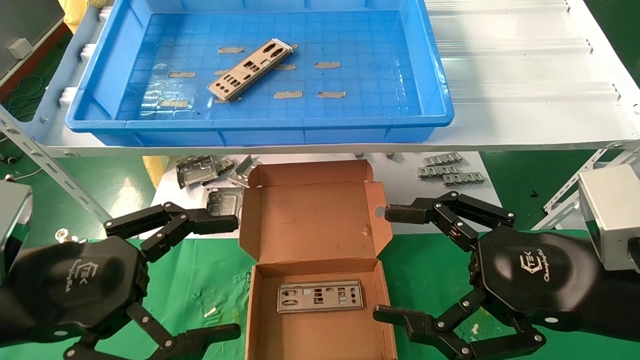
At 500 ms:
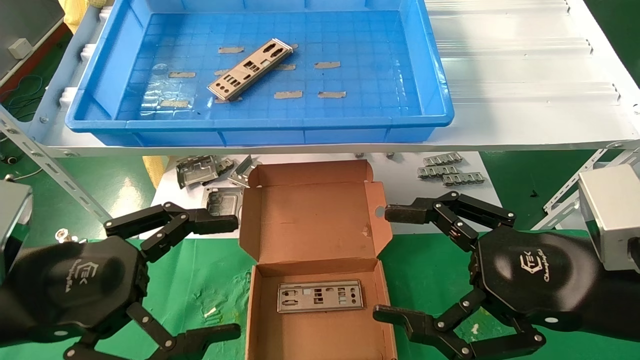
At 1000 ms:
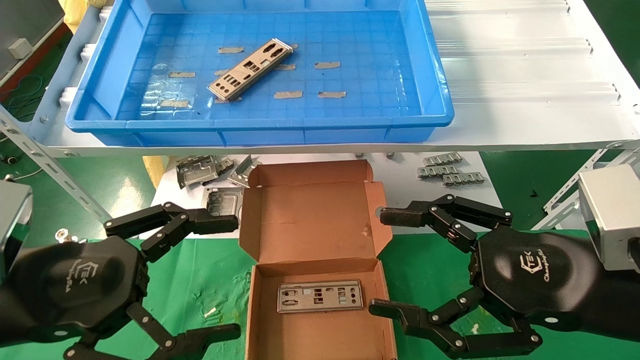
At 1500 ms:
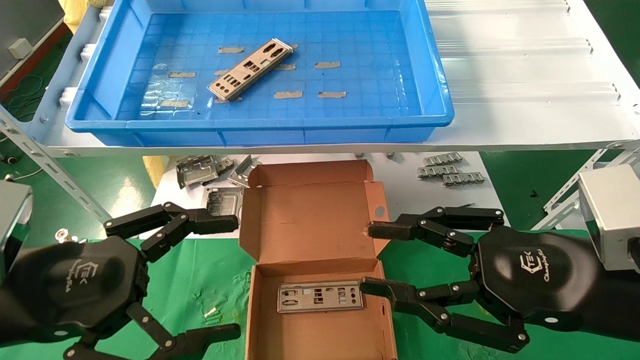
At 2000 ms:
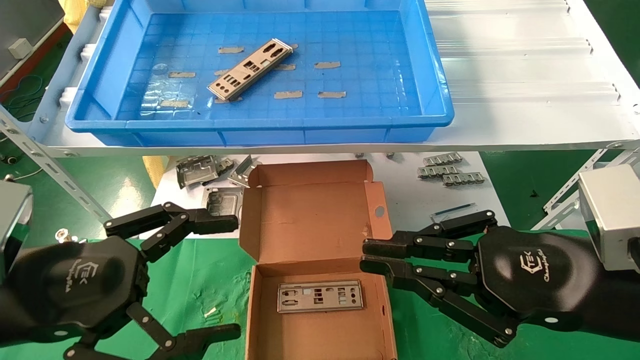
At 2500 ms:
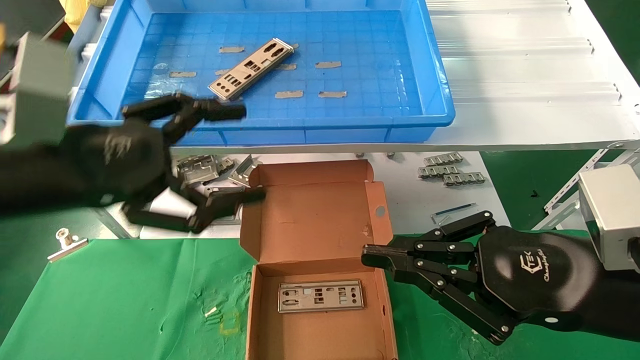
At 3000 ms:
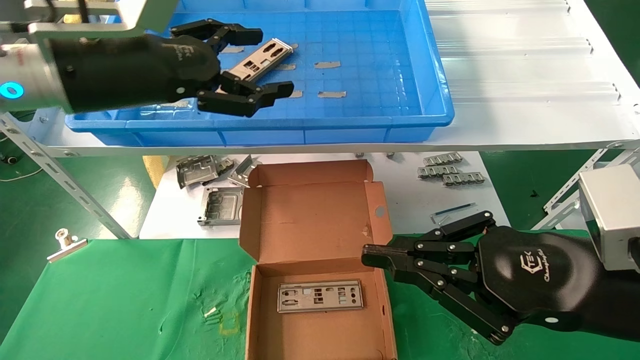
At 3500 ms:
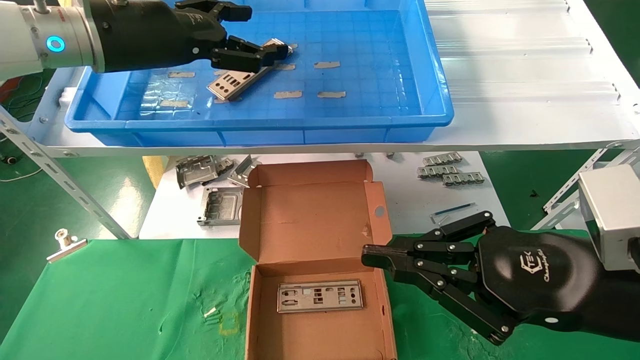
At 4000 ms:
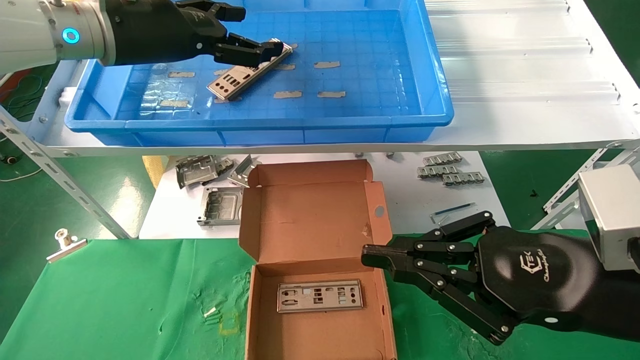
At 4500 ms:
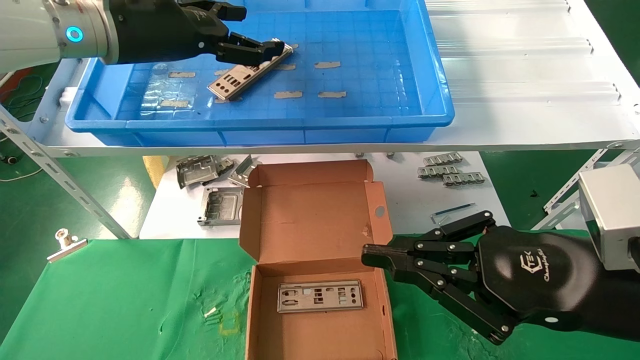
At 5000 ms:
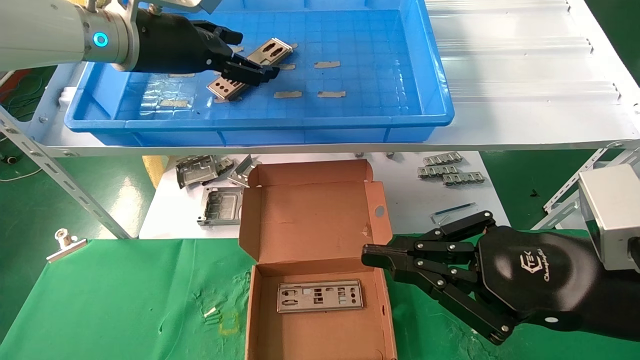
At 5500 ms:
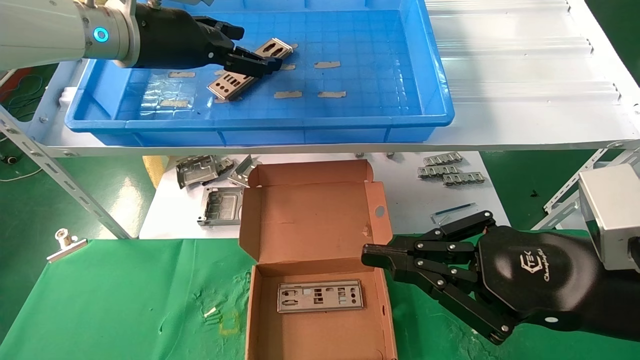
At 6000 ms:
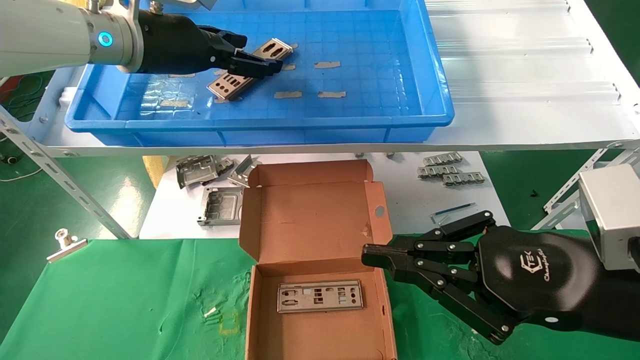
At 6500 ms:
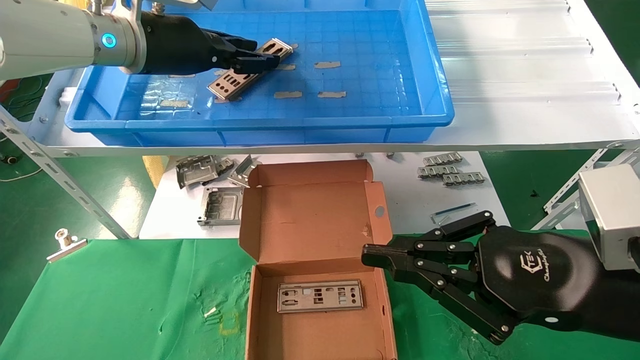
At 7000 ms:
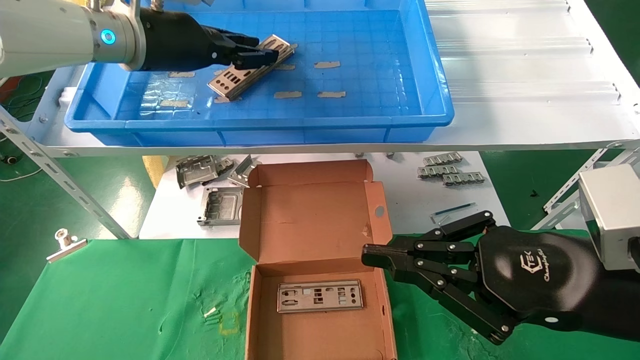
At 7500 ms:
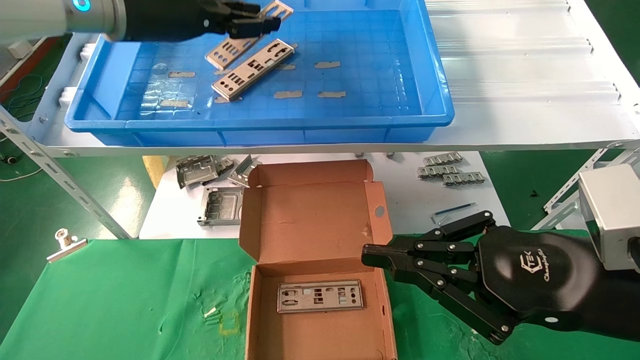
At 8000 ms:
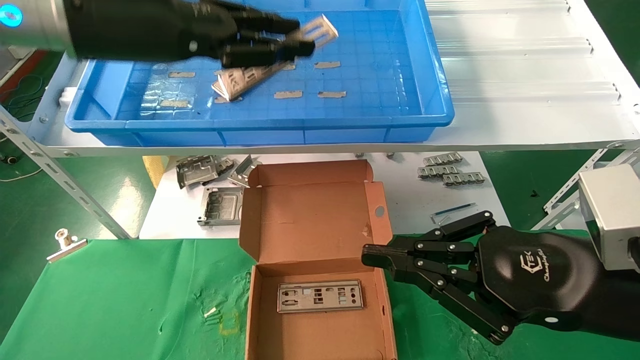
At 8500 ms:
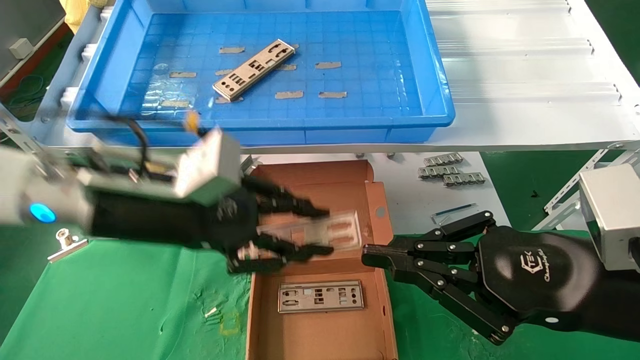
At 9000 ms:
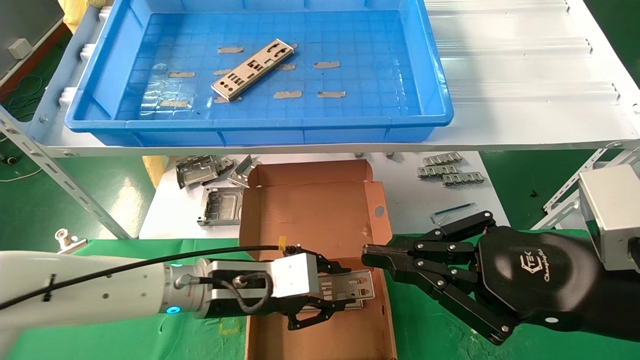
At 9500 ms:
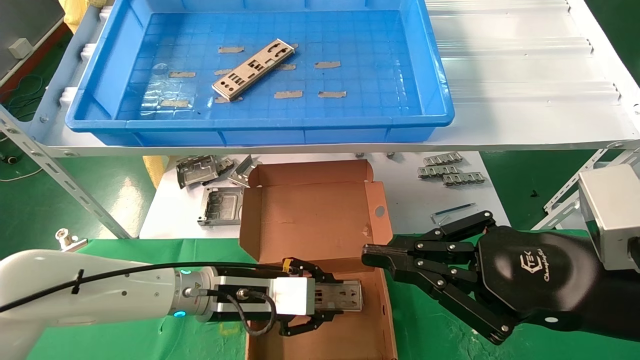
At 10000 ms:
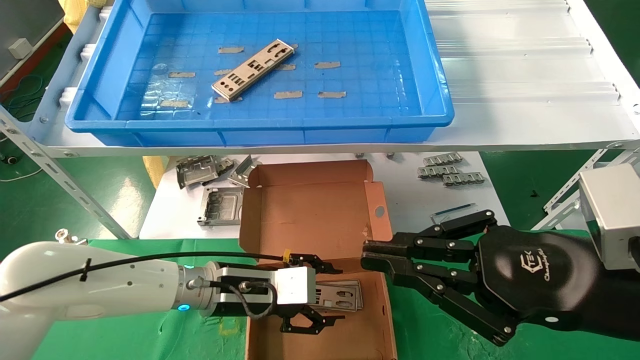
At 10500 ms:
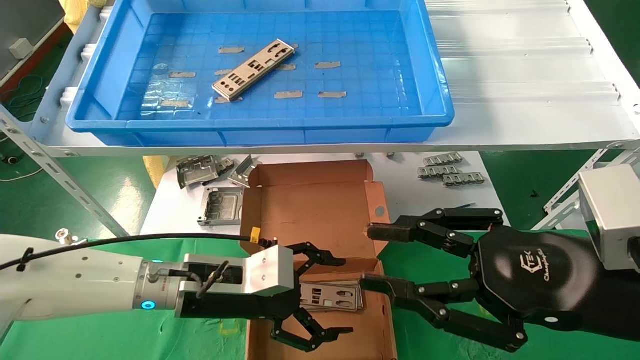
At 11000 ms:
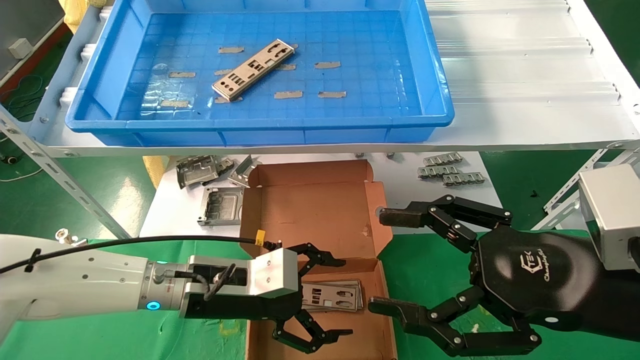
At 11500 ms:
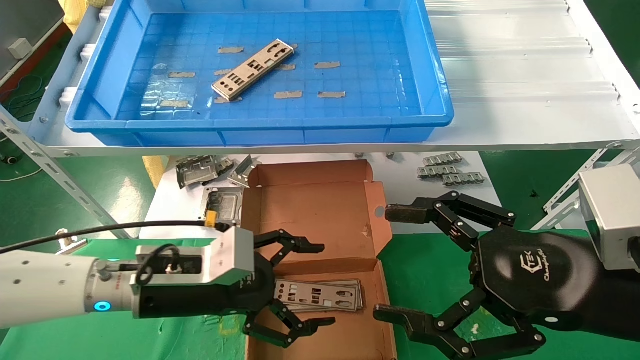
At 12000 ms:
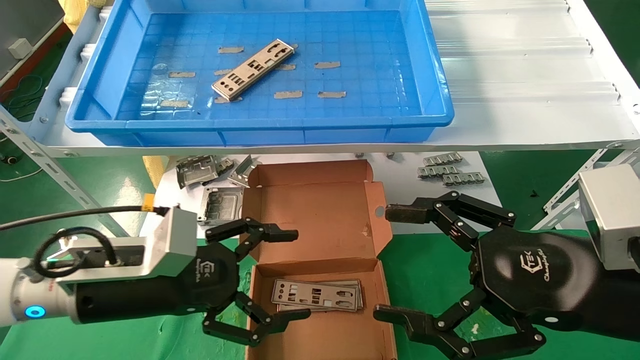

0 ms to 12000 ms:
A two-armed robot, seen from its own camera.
Task of the whole recording: pick up the parts on the tray and put them in the cardboard box.
Step, 2500 ms to 6500 ms: Pick up the IO bracket from the container box.
Step, 7000 ms to 9500 ms: Place the IO bracket into the ingredient slot.
0 ms to 2000 ms: The right gripper closes up.
2000 ms to 4000 ms: The left gripper moves forward and upward, about 30 cm.
4000 ms to 6000 ms: The grippers make only small movements.
6000 ms to 8000 ms: The left gripper heads backward, covering roughly 10 cm, and closes its fingers.
8000 ms to 10000 ms: The left gripper goes about 30 cm downward.
10000 ms to 12000 ms: The left gripper shifts roughly 15 cm backward, to the left and upward, and opens up. Meanwhile the right gripper opens up.

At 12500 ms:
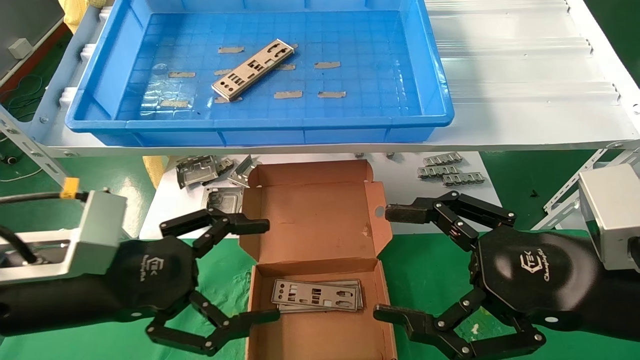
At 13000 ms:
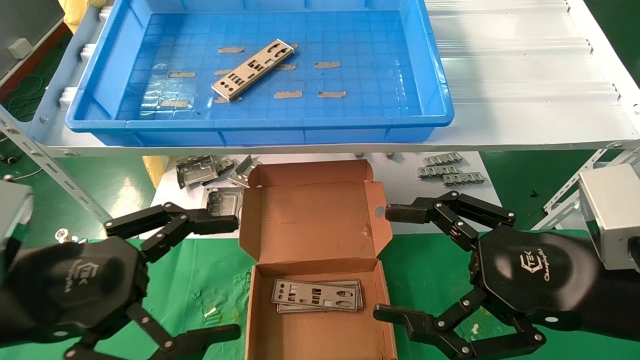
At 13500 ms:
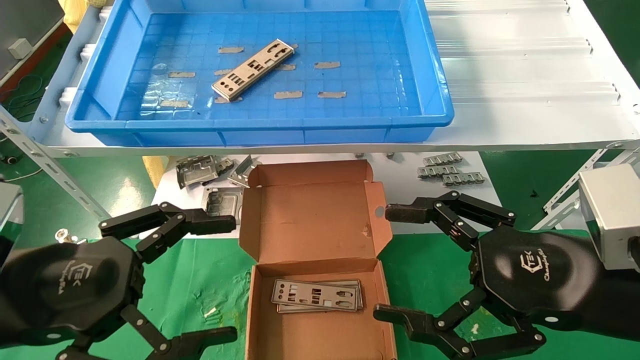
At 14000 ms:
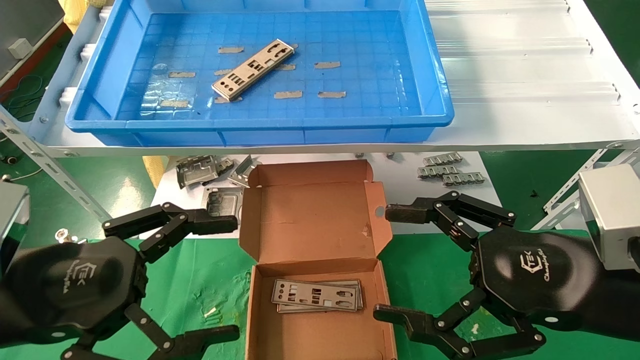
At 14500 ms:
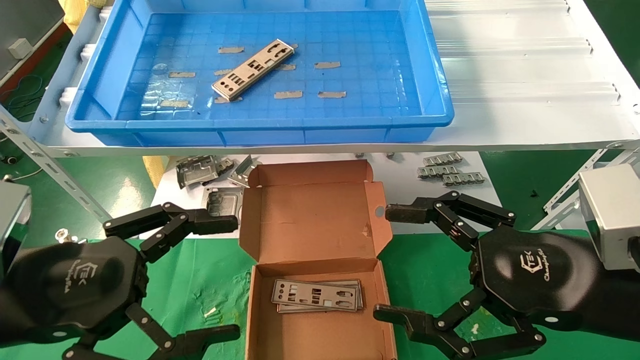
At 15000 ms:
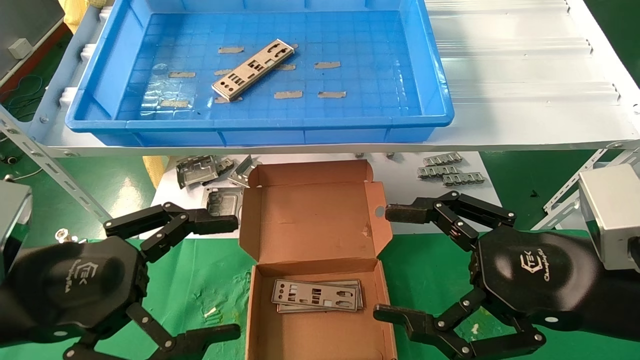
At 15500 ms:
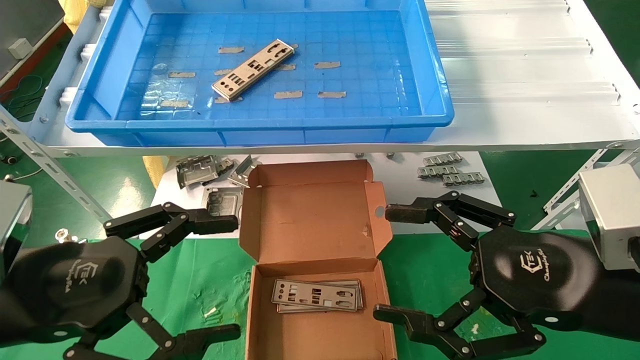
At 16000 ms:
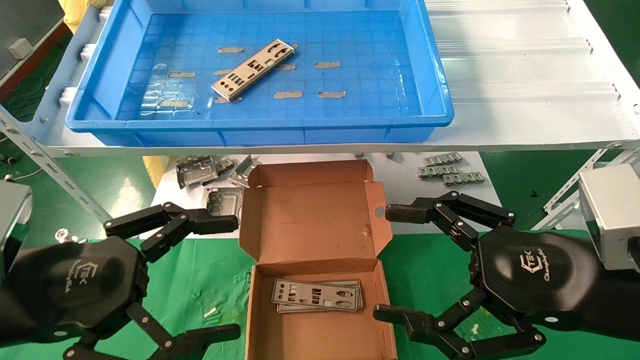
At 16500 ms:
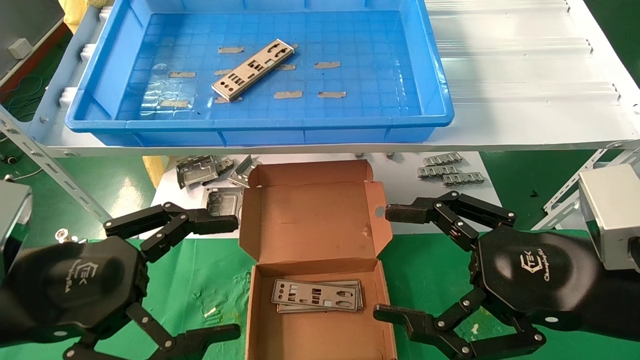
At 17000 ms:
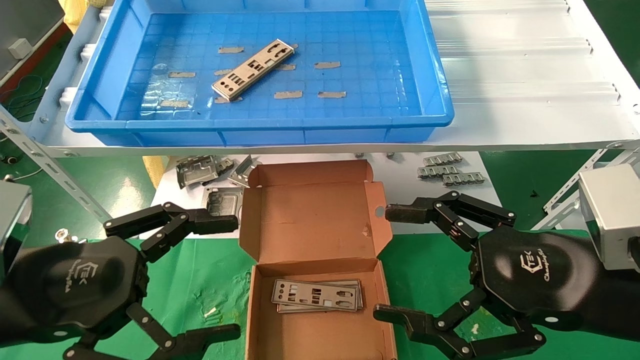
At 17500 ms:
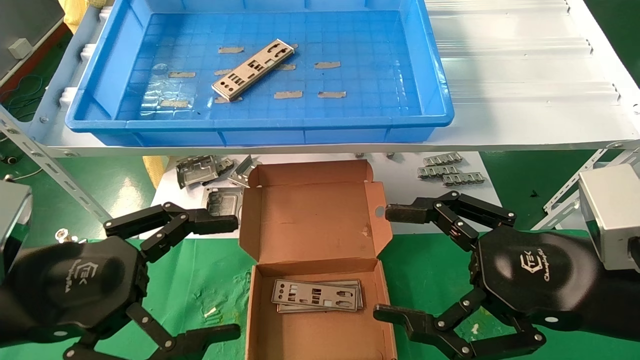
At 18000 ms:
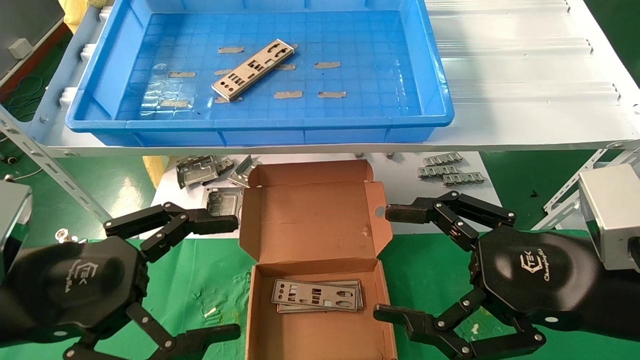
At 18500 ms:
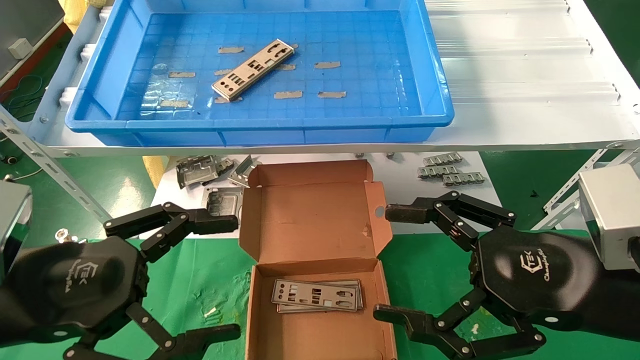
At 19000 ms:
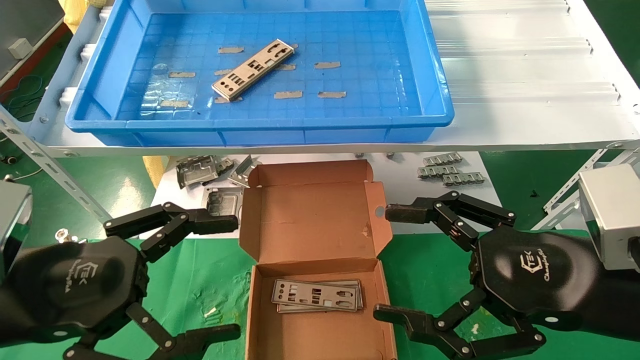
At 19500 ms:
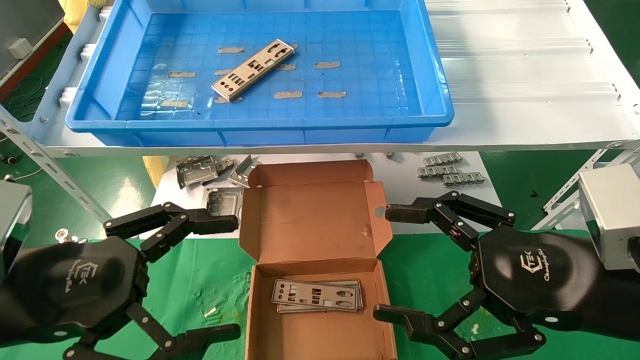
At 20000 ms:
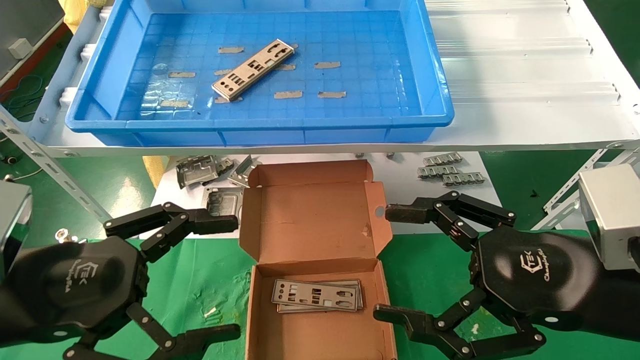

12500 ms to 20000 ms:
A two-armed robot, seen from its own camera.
Task of the whole recording: pick up the parts on the tray and put them in the cardboard box.
12500 ms to 14500 ms: The left gripper shifts by approximately 5 cm.
14500 ms to 20000 ms: Both grippers stay about where they are.
